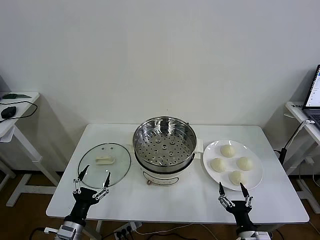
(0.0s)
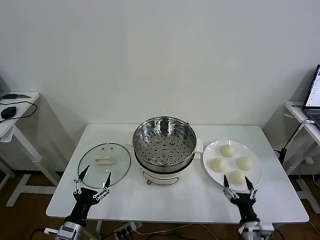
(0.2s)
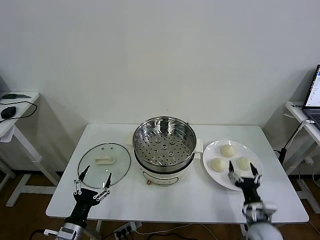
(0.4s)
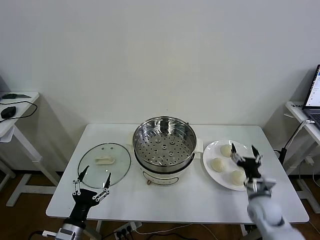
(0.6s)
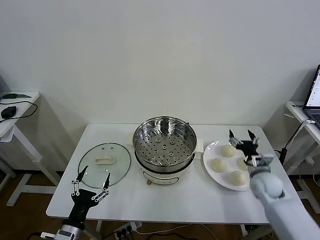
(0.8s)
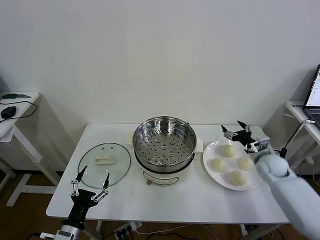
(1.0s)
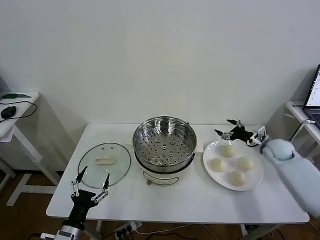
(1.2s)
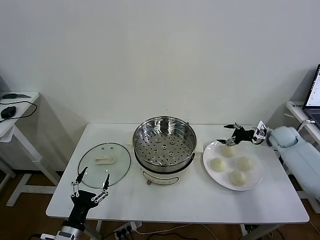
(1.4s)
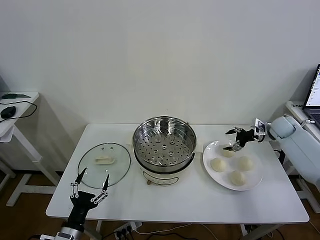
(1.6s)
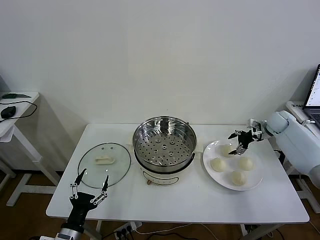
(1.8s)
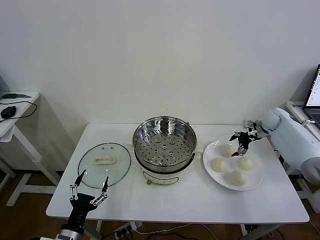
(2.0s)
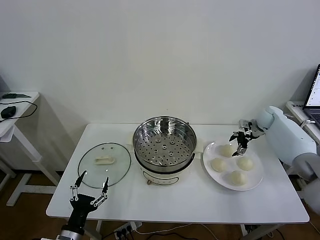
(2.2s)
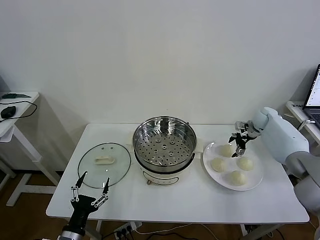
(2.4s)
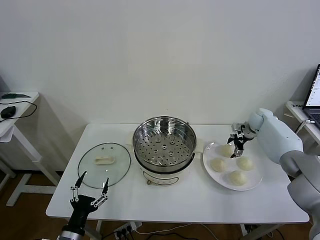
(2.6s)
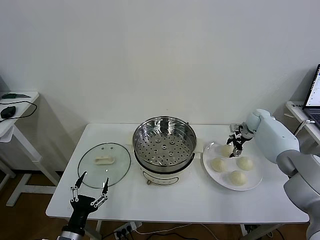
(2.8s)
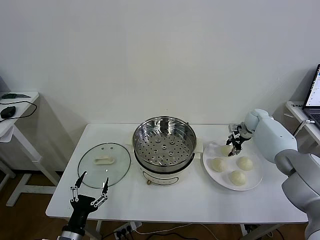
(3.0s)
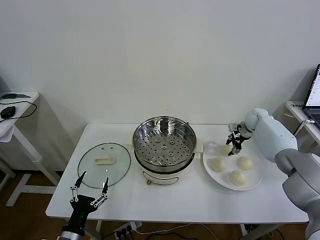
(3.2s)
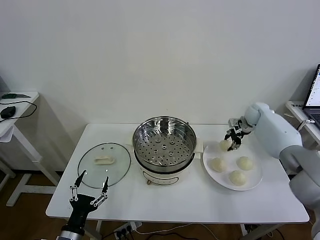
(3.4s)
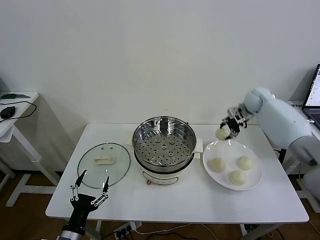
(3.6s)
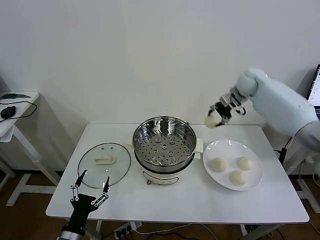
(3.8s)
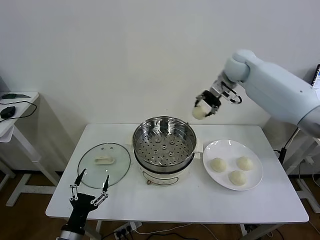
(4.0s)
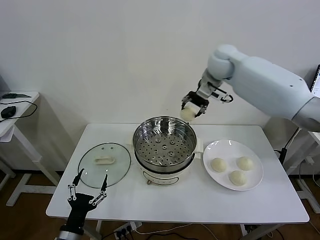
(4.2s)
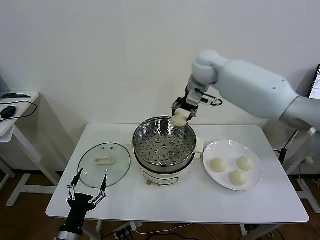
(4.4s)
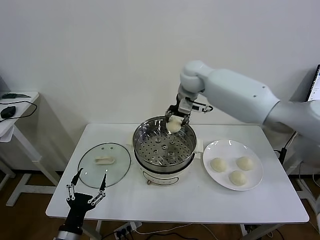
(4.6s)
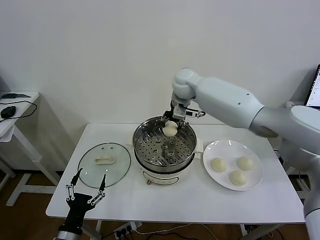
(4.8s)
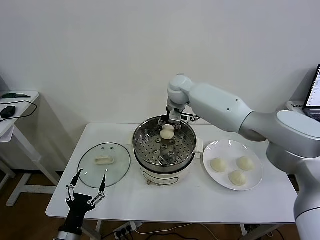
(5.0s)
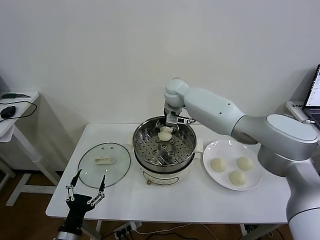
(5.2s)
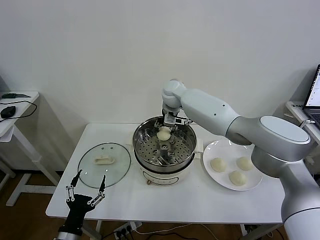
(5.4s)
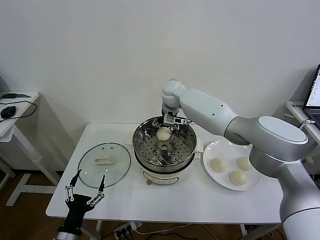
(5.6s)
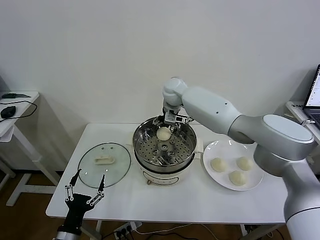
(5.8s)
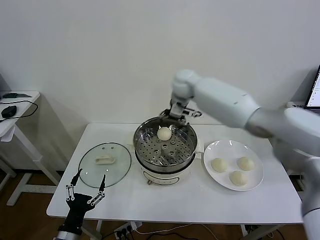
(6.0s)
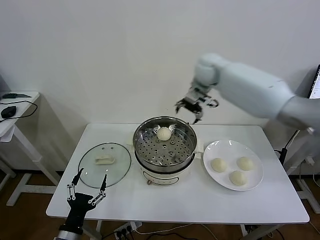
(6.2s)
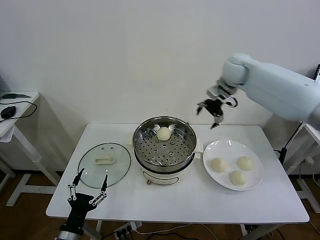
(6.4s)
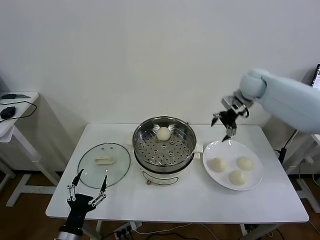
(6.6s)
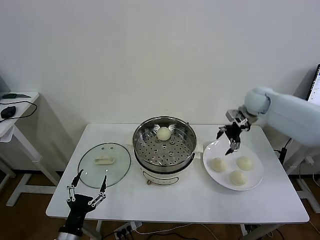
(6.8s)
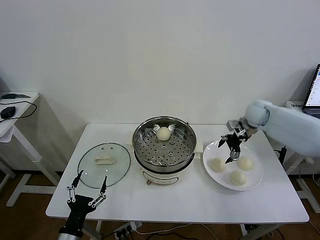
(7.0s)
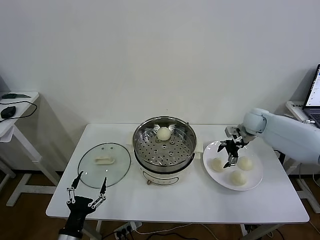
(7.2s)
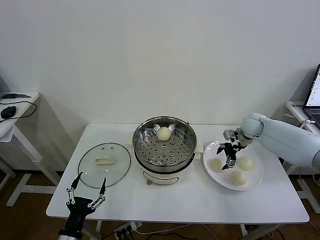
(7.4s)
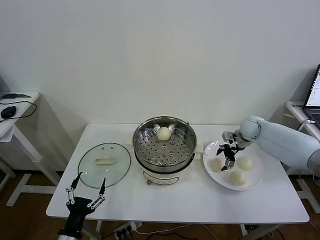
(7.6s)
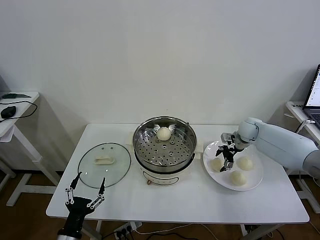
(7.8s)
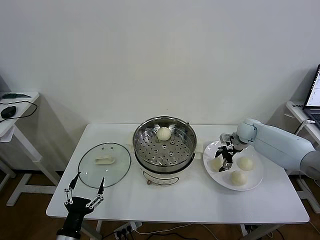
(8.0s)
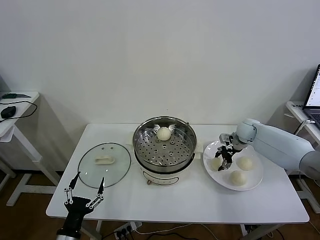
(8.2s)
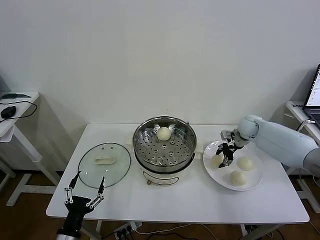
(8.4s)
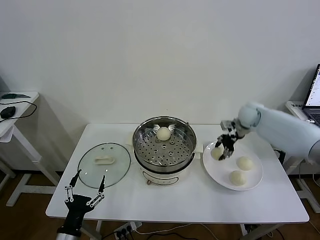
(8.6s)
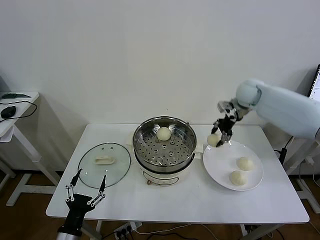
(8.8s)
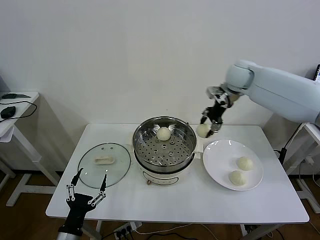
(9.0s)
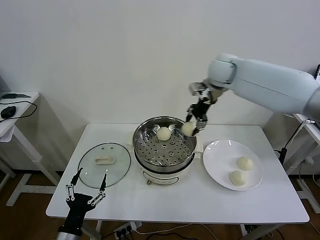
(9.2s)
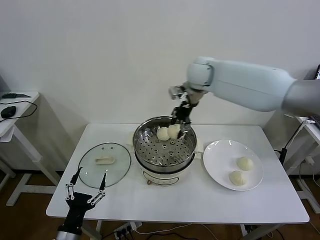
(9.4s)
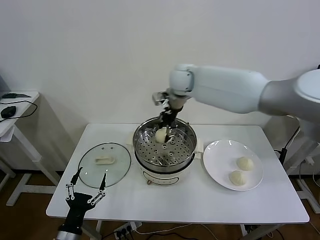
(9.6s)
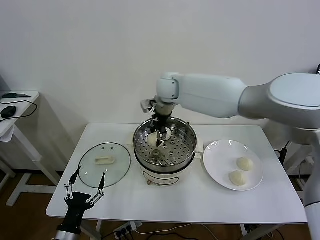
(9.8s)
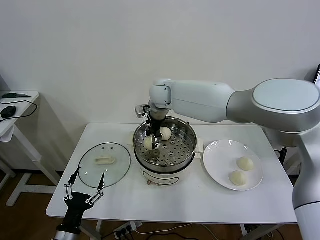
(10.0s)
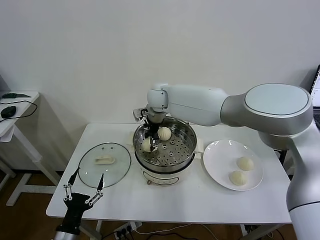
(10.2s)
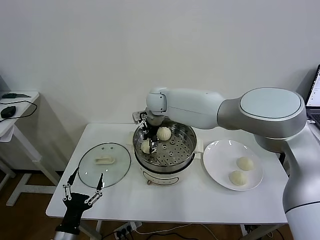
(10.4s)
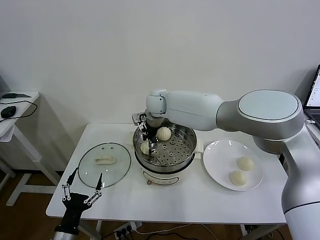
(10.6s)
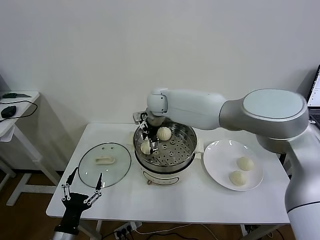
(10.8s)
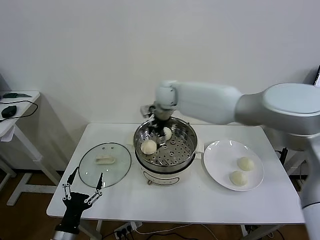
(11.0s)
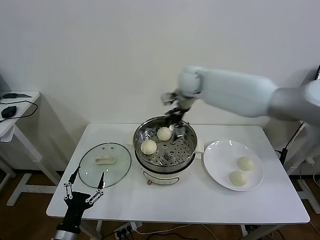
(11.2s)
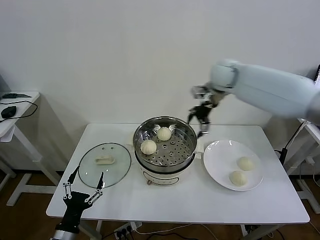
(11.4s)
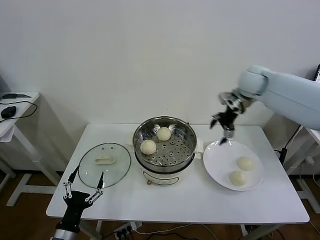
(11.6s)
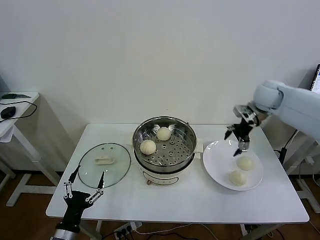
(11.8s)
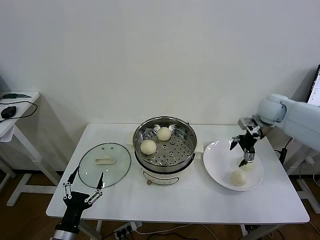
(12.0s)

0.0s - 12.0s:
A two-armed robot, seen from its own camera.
Task of the whole recording: take steamed baozi put them in steamer then cover it.
Step, 0.0s - 2.8s: Grasp the baozi in the plate with right gripper.
Step, 3.2s - 5.6s: Place the baozi on the steamer with right gripper.
Step, 5.8s - 8.0s: Grasp the baozi in the plate with right gripper.
Step, 8.4s - 10.6s: Place the baozi on the steamer with right gripper.
1.6s - 3.0s: The right gripper travels to the left and forward by approximately 10 cm, and closes its fingers.
3.0s - 4.4s: The right gripper travels to the left and upward by approximately 35 cm.
4.4s - 6.0s: The right gripper reaches roughly 10 cm downward, then returns, and opens.
6.0s - 7.6s: The right gripper travels to the right and downward by about 30 cm.
7.6s - 9.0s: The right gripper moves upward and to the left, approximately 25 cm, and closes up.
9.0s - 10.4s: The right gripper moves to the left and downward, approximately 25 cm.
10.4s - 12.0s: The right gripper shifts about 40 cm to the right, and opens up.

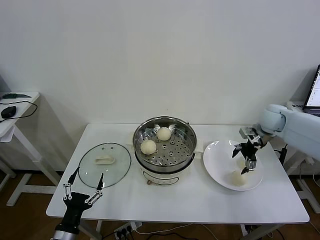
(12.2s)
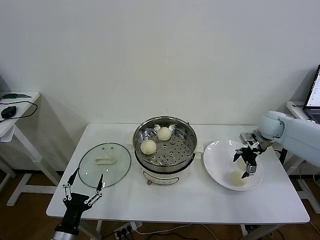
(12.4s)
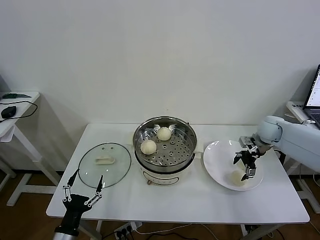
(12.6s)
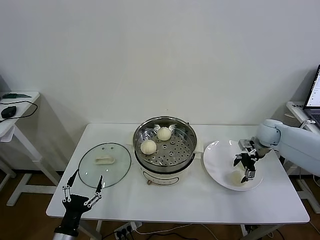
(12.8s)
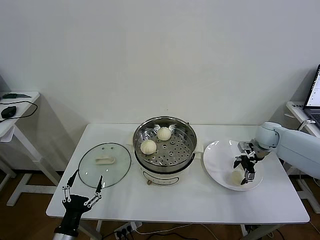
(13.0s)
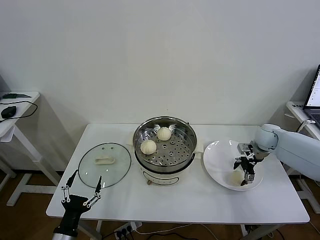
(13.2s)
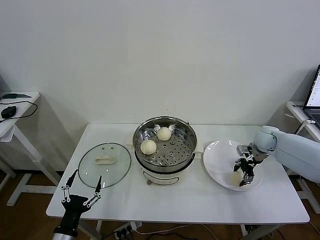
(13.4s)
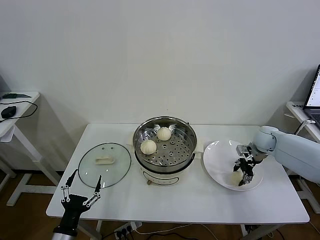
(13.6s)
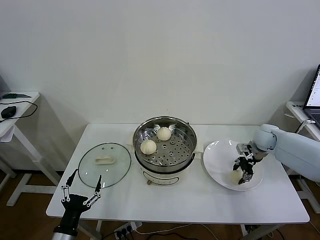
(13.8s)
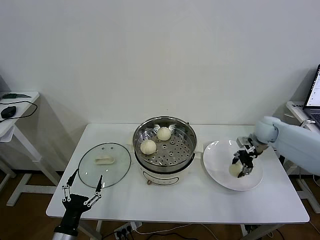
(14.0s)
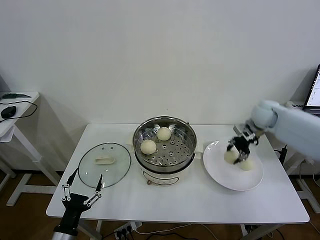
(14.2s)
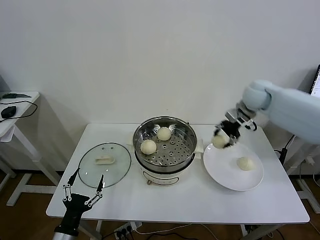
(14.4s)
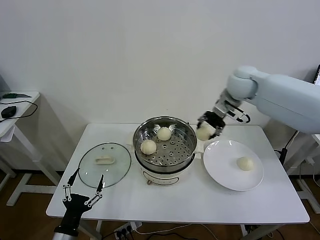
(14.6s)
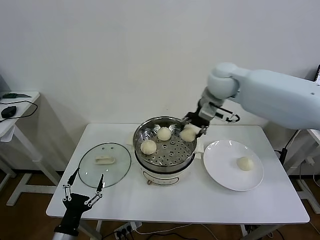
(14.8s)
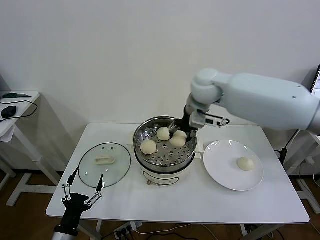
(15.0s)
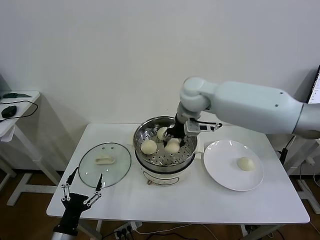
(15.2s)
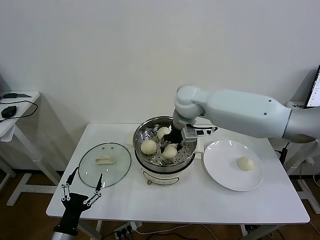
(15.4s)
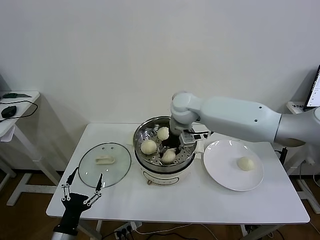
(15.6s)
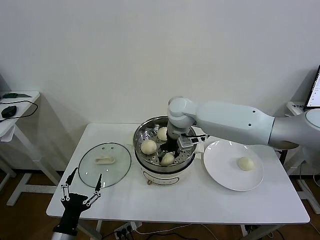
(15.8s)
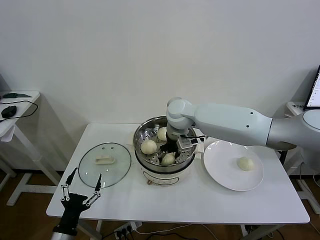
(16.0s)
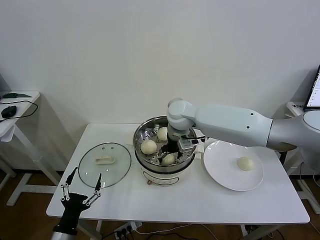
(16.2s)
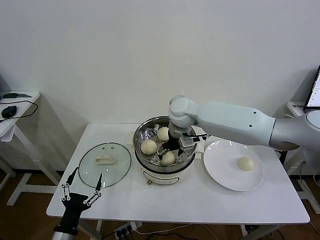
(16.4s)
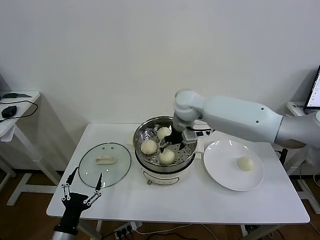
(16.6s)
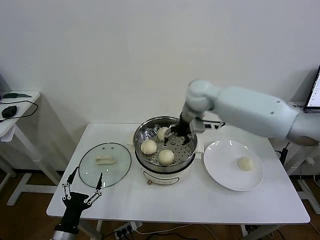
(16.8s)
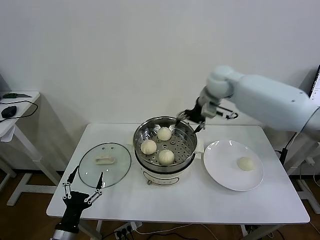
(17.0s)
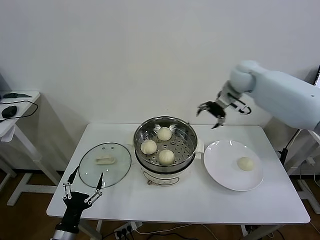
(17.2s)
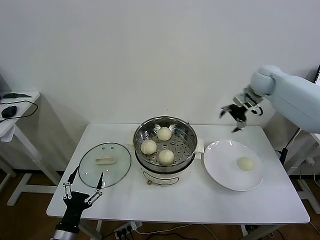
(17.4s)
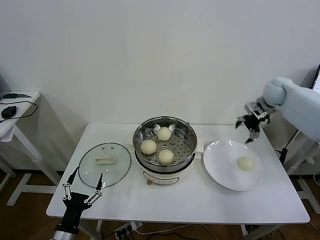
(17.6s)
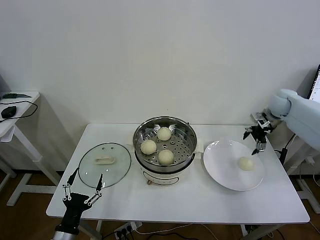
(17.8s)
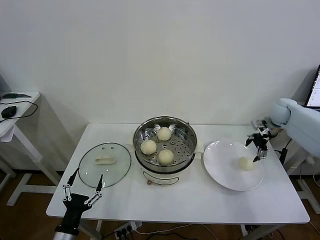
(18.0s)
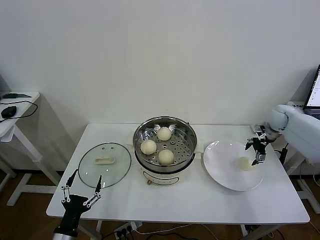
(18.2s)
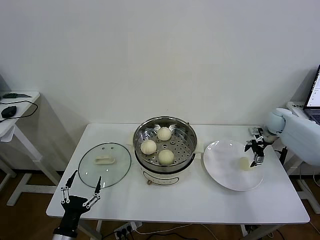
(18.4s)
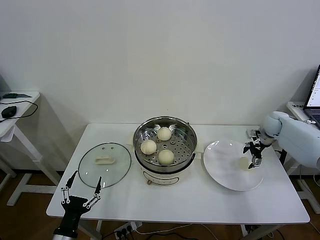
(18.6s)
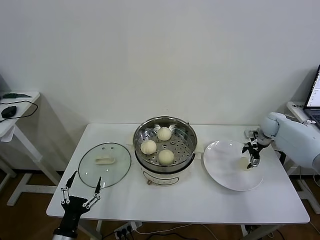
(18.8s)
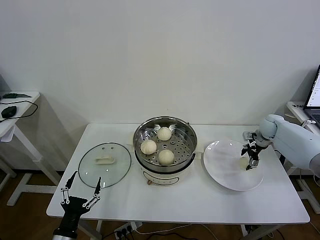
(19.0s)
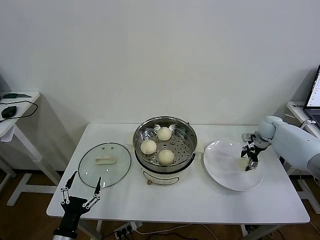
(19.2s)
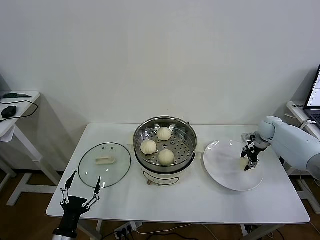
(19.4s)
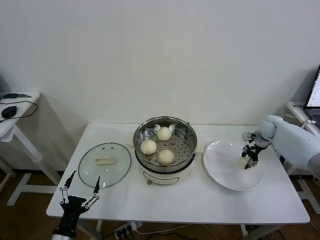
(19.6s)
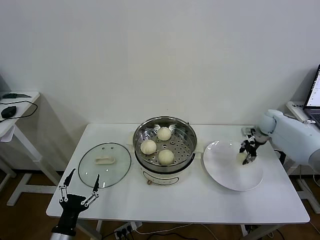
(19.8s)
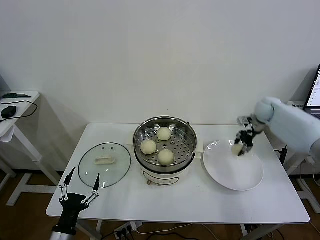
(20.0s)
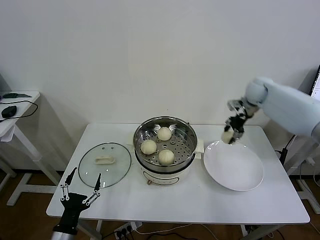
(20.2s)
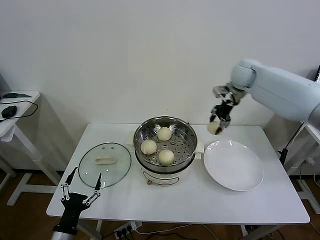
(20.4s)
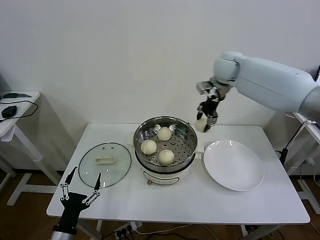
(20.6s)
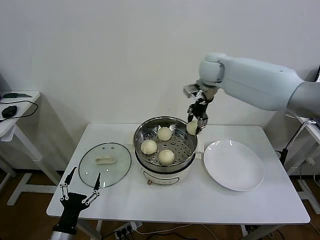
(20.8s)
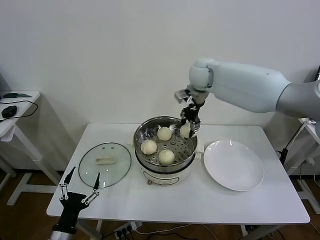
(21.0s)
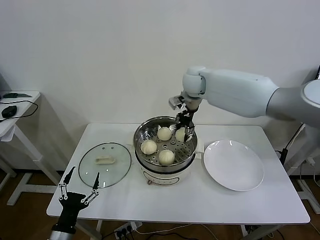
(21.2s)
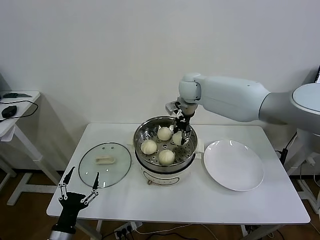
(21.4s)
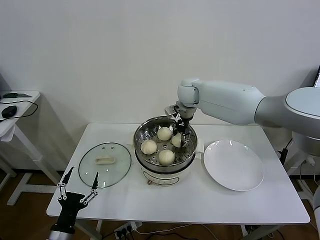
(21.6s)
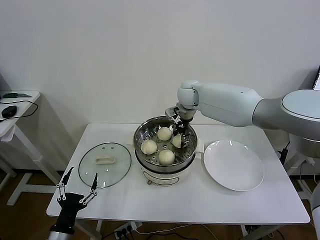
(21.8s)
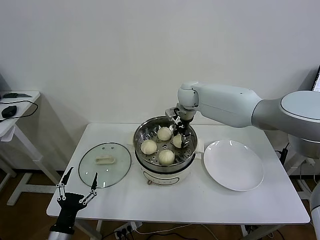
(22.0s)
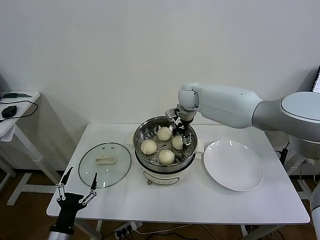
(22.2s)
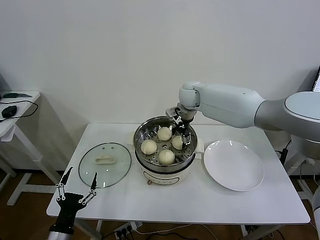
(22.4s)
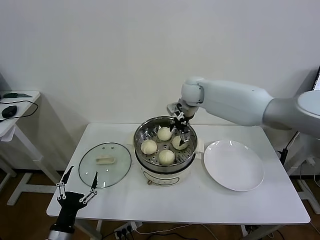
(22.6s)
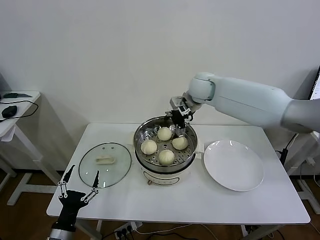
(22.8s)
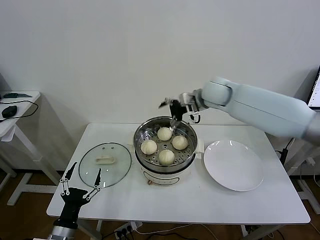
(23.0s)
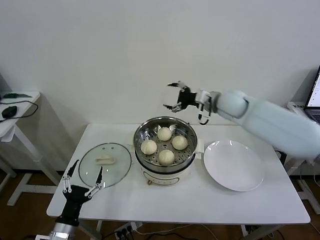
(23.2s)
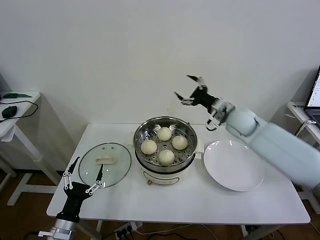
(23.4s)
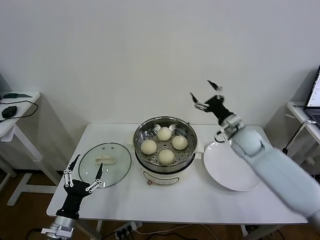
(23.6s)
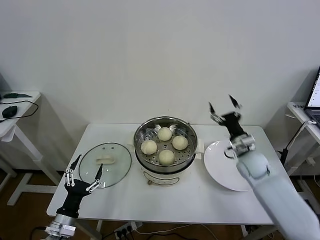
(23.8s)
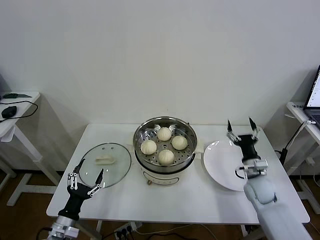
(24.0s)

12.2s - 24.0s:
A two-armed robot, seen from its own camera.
Task of the whole recording: take steamed baozi put them in steamer then cover it.
Step, 14.0s - 16.2s: Place the baozi on the steamer with right gripper.
Step, 16.4s - 19.6s: Grasp the baozi in the plate with right gripper.
Step, 19.8s - 22.4s: Place the baozi on the steamer with right gripper.
12.2s - 13.6s: The right gripper heads downward, covering roughly 10 cm, and closes up.
13.6s - 15.2s: The right gripper travels to the left and upward by about 35 cm.
15.2s - 16.6s: The right gripper opens up.
16.6s - 18.2s: The right gripper is displaced to the right by about 35 cm.
18.2s - 19.6s: The right gripper is displaced downward by roughly 5 cm, and closes up.
19.6s - 21.0s: The right gripper goes approximately 40 cm to the left and upward.
21.0s - 22.6s: The right gripper goes some 5 cm downward, and opens its fingers.
22.6s - 24.0s: The left gripper moves forward, about 5 cm. The right gripper travels downward, to the right and backward by approximately 40 cm.
